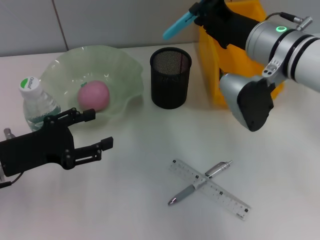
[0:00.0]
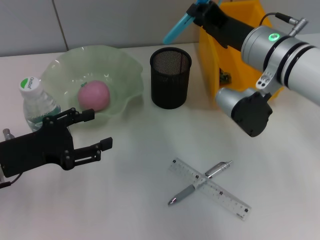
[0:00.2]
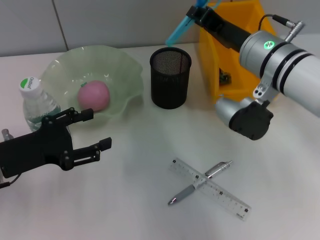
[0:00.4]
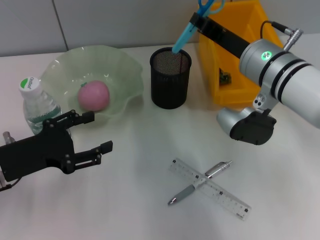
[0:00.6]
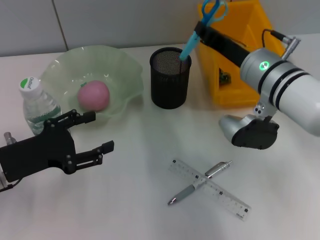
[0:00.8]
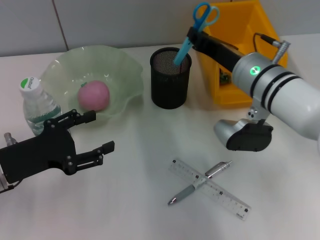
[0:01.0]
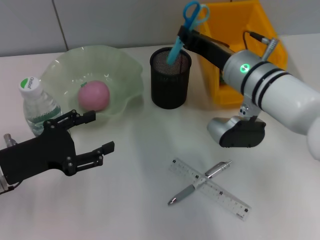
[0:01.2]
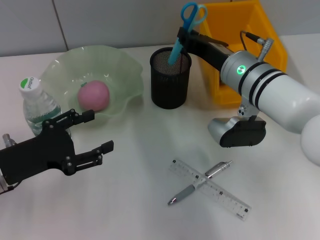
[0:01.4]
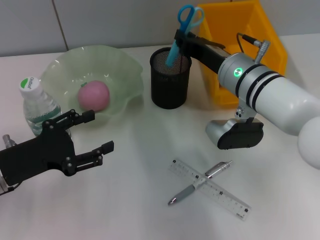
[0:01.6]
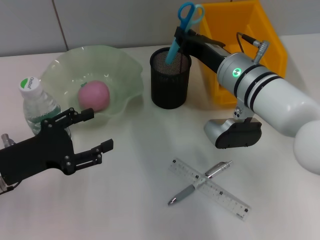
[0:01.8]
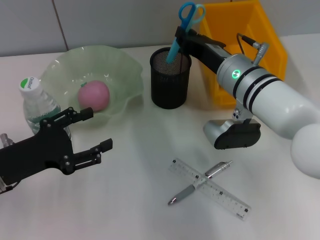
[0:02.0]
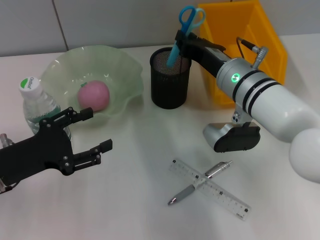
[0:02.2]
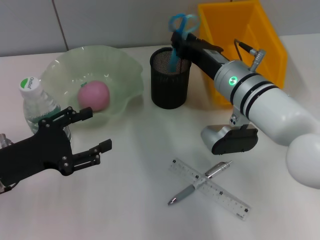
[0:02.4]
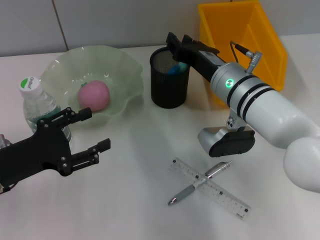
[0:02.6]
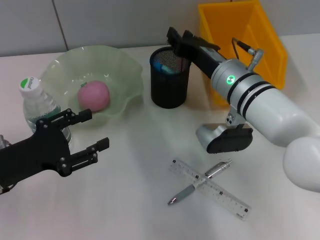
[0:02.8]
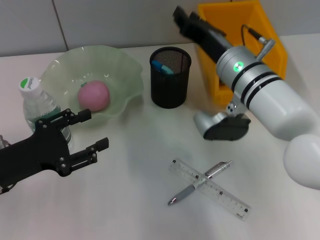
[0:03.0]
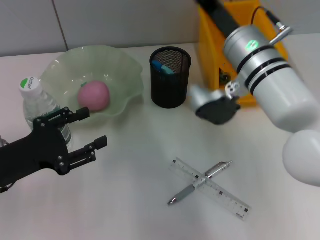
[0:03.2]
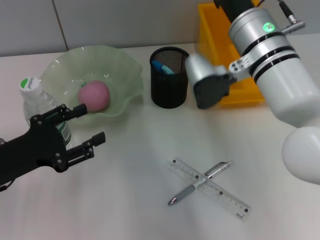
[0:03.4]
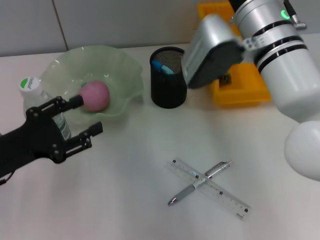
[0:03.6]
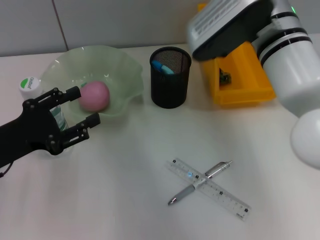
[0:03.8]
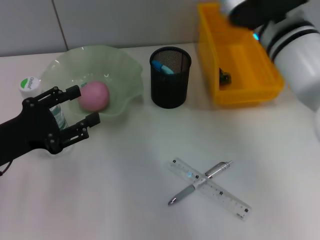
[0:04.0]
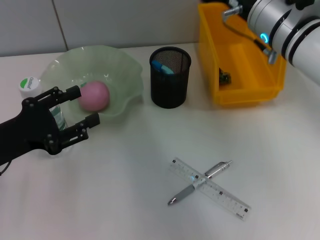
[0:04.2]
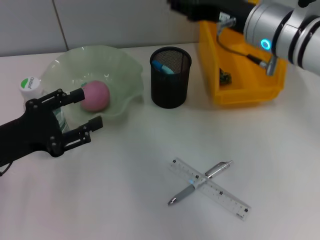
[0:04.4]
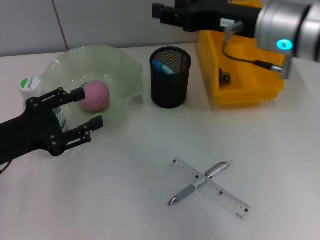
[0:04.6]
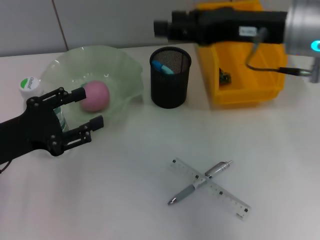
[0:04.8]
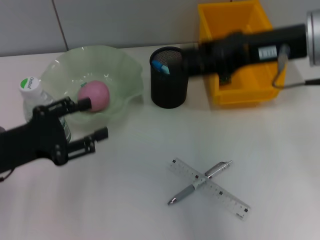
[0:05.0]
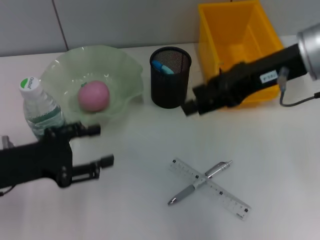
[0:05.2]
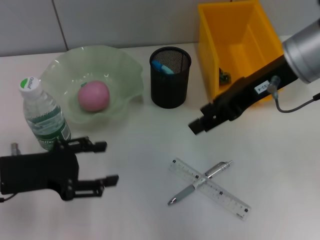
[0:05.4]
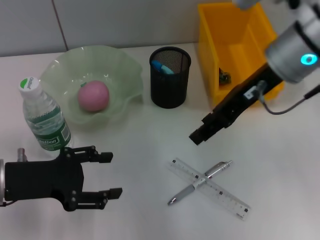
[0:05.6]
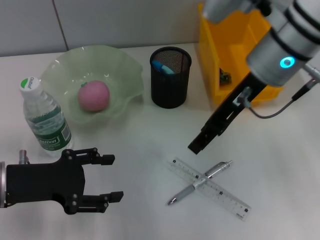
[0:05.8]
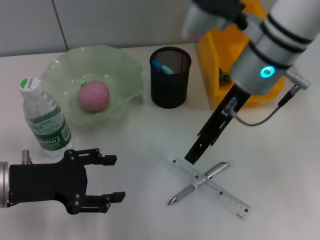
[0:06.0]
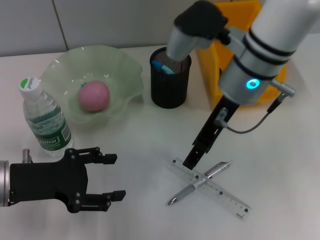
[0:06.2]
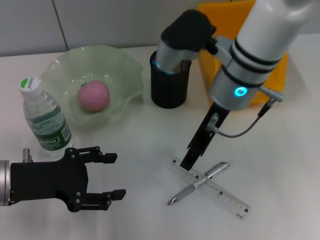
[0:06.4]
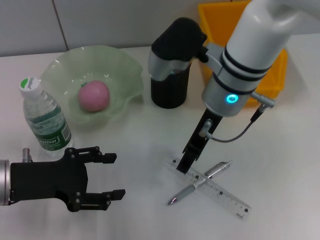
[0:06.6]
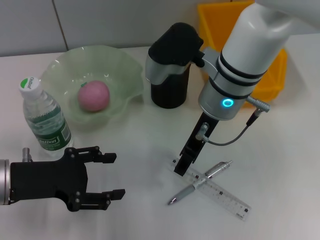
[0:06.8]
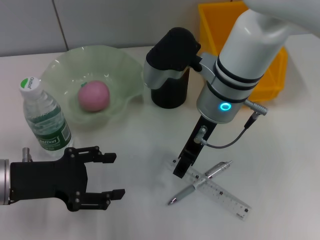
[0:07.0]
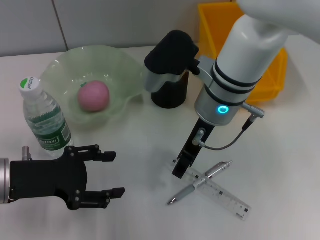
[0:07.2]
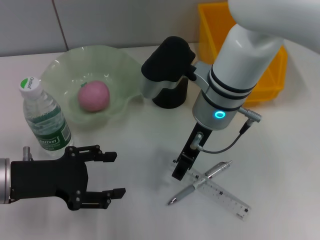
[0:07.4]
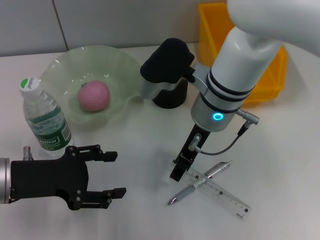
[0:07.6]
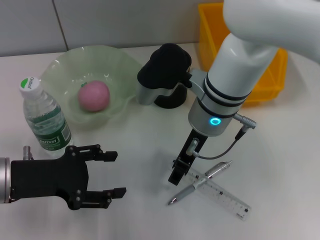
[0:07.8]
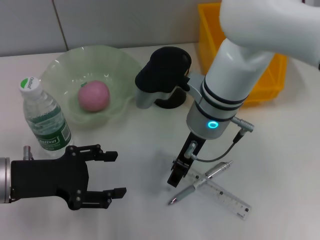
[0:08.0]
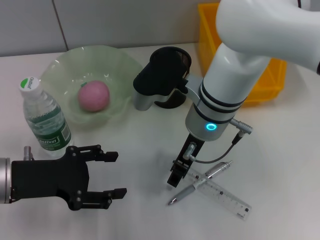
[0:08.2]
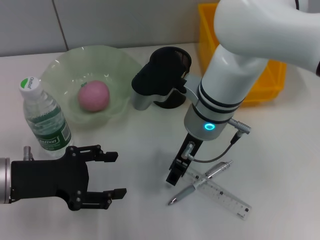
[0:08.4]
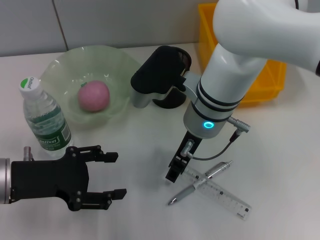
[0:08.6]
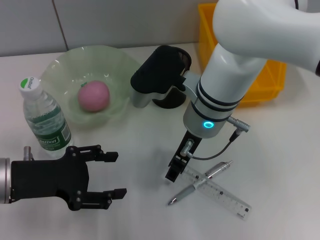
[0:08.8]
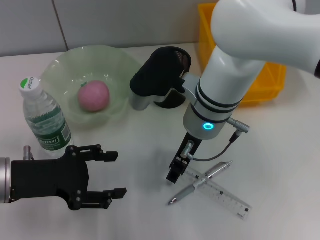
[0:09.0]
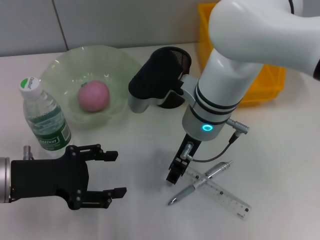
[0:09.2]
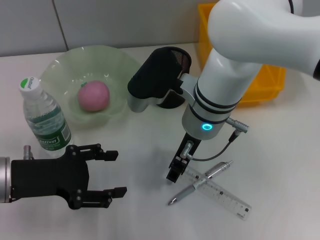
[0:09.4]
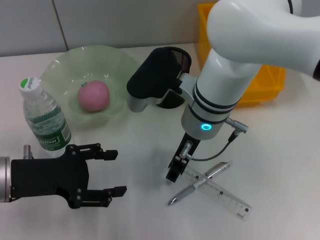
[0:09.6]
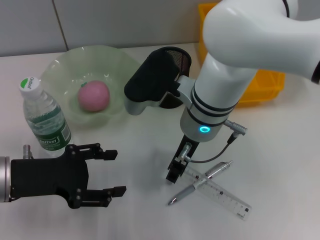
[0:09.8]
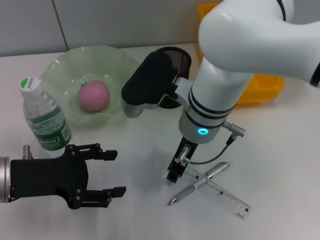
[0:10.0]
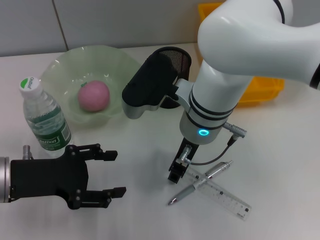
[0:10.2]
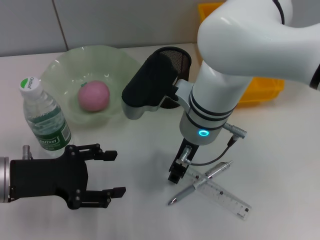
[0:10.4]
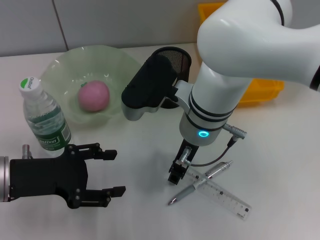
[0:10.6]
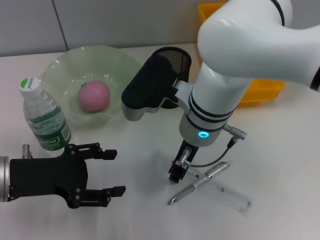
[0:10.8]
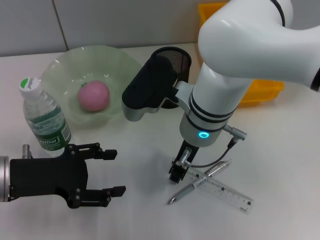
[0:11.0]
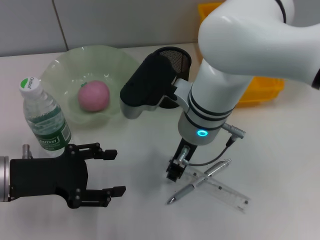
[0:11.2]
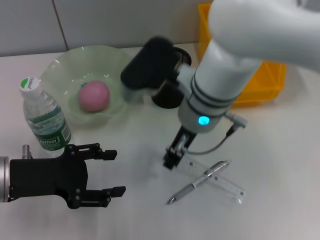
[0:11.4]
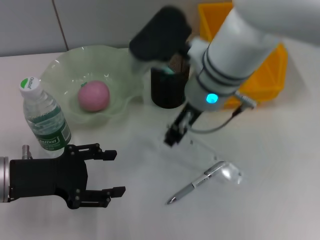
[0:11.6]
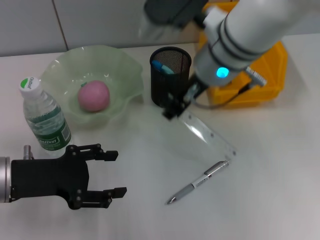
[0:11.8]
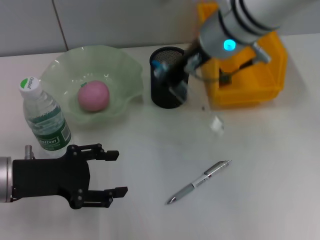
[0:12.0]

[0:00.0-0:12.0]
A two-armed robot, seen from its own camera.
Step, 0:00.0 to 0:02.6: Place the blue scissors into the pen holder with the right hand.
Step, 0:02.8 to 0:10.8: Grab the ruler with the right hand.
0:00.0 to 0:01.6: The right gripper ends up approximately 5 cm from where it was.
0:01.6 to 0:03.0: The grippers move only a little.
0:03.0 to 0:04.4: The right gripper is displaced upward by about 10 cm.
0:06.0 to 0:07.6: The right gripper heads downward and to the left, covering approximately 10 cm.
0:07.6 to 0:09.0: There are only small adjustments of the grippers.
0:09.0 to 0:10.4: Both grippers stay put.
0:10.4 to 0:12.0: The right gripper moves upward, roughly 10 cm.

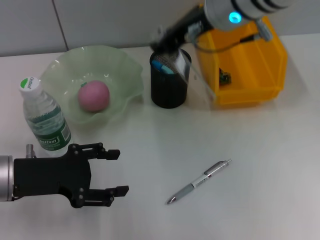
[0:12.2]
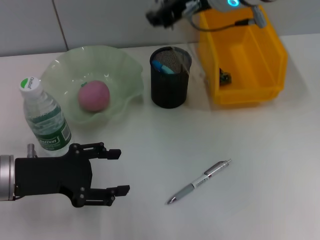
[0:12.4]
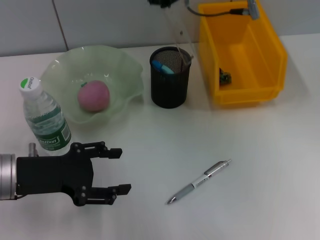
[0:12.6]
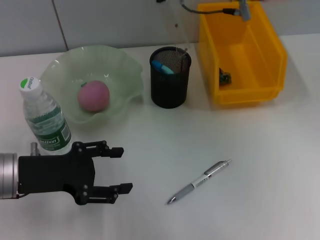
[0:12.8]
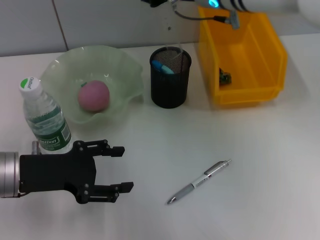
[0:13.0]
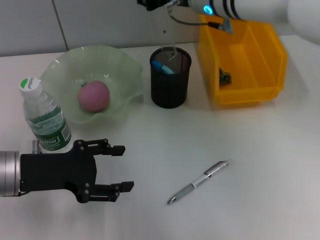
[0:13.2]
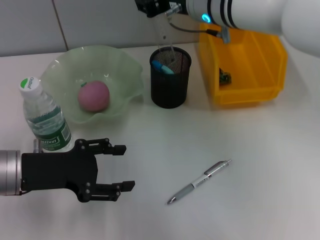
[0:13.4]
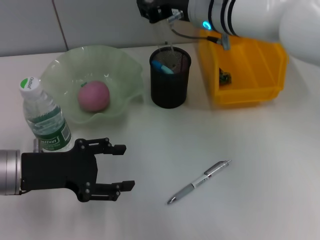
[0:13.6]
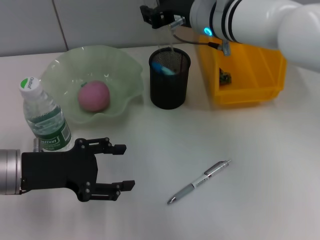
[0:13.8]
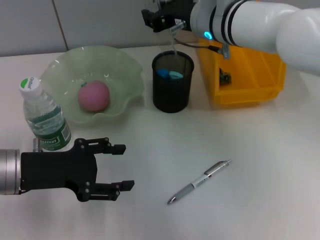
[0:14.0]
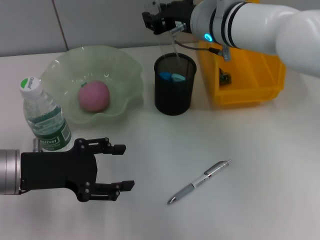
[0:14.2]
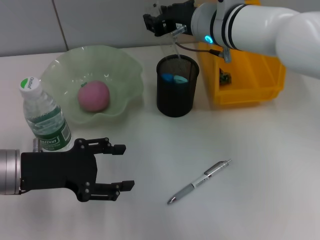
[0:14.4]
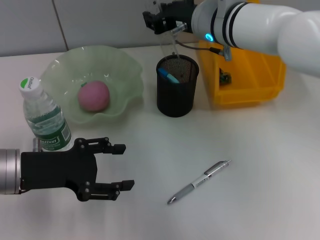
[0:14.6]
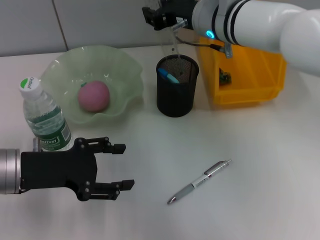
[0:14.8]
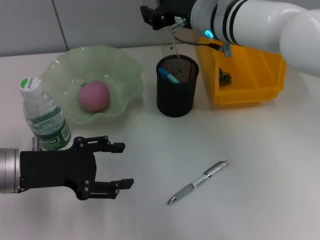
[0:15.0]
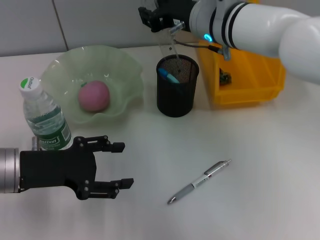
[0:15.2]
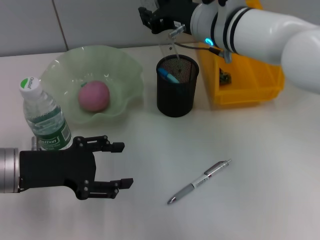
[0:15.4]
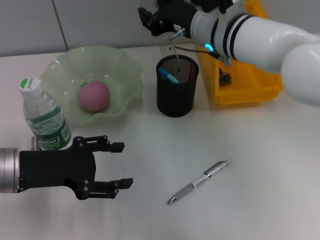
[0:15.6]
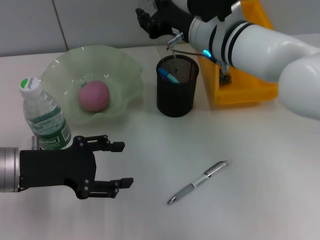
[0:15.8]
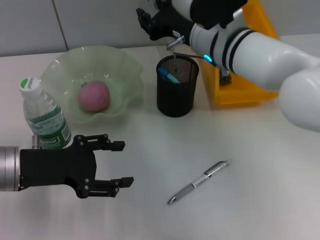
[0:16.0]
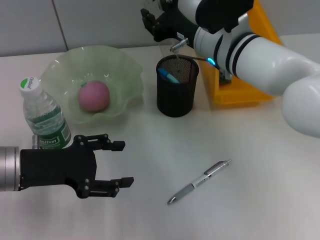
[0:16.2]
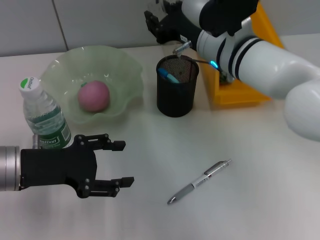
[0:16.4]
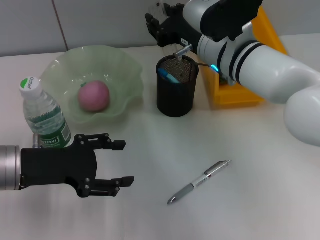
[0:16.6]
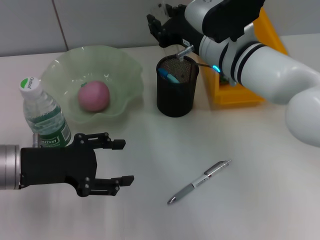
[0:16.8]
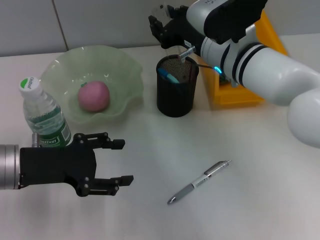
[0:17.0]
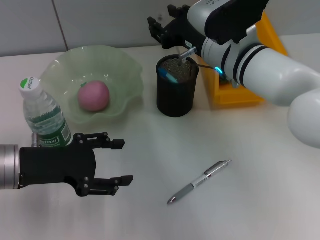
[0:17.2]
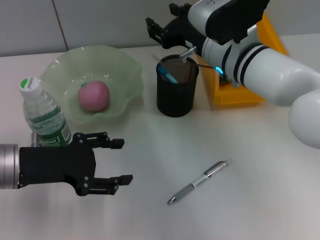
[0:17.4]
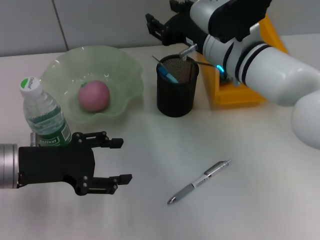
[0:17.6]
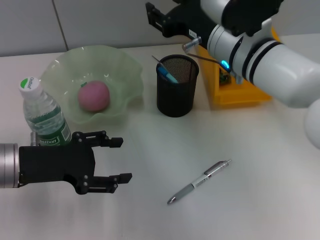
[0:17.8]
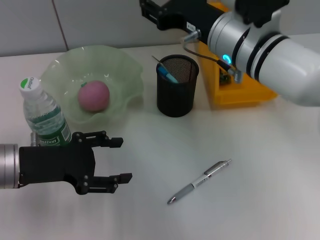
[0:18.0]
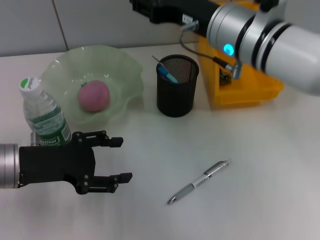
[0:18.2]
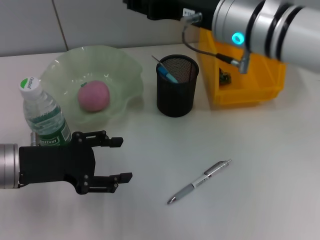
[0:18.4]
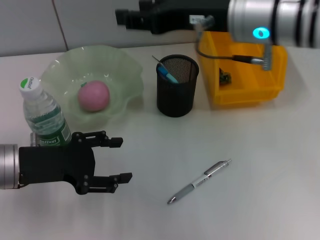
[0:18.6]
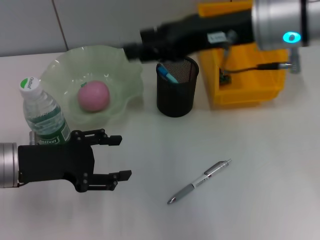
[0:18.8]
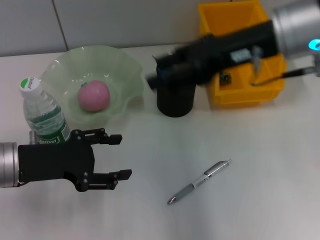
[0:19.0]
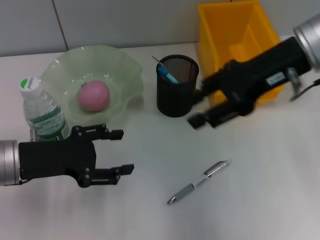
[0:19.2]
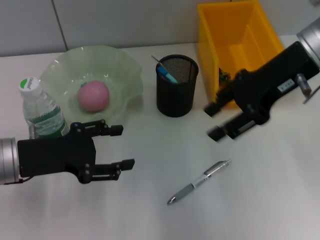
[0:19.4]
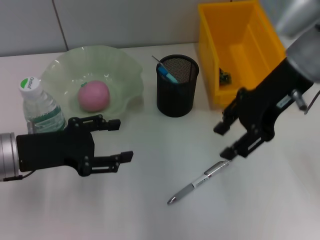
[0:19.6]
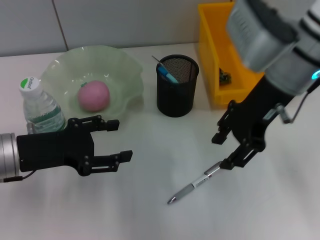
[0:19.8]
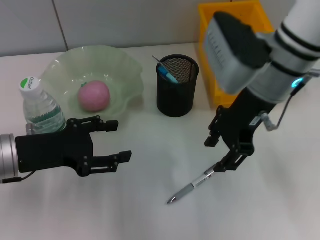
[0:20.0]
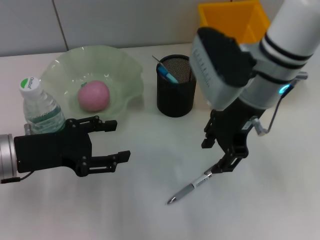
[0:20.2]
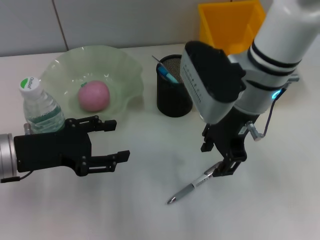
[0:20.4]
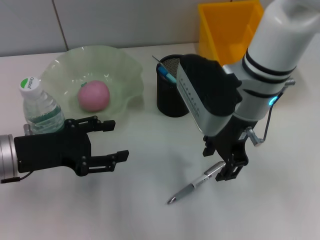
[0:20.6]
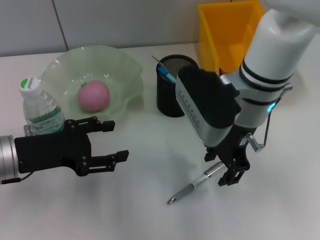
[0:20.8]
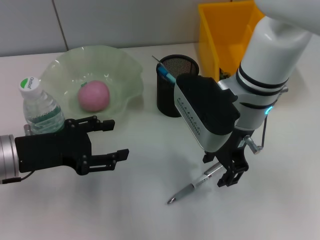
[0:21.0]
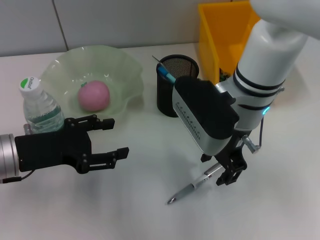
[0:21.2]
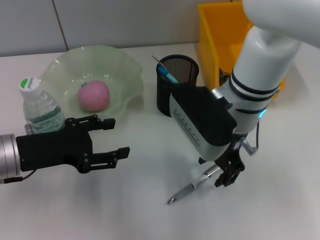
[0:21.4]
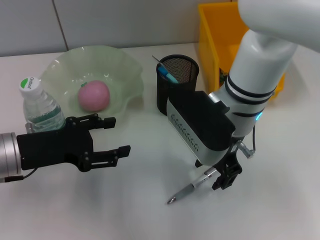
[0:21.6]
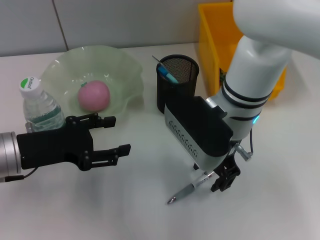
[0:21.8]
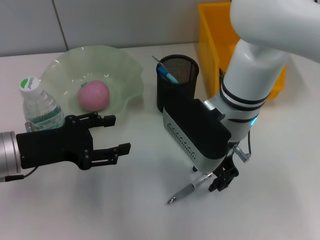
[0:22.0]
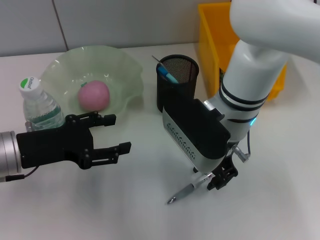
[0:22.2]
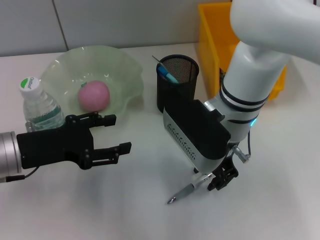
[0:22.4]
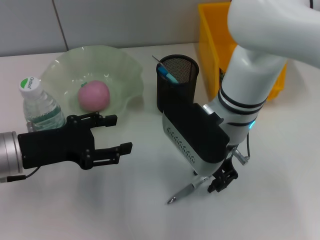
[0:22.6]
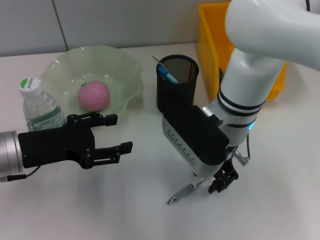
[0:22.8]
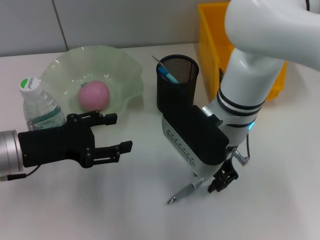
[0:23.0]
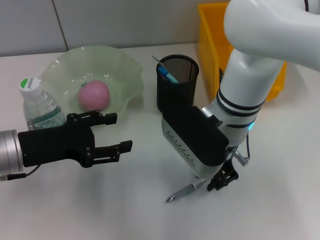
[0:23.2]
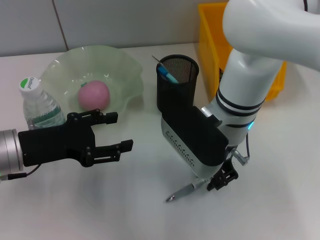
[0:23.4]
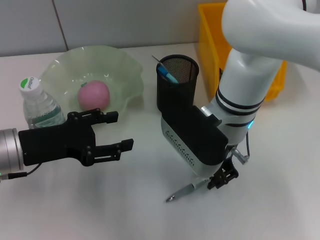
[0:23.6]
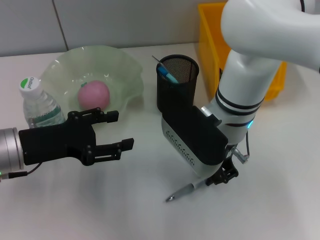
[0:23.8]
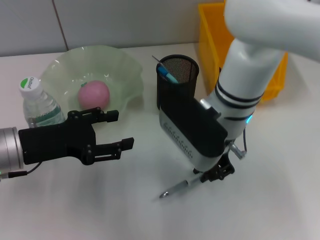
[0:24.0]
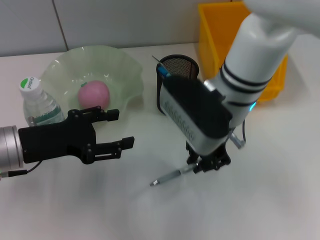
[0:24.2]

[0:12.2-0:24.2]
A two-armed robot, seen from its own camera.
Step, 0:12.2 to 0:17.6: Place the ruler into the pen holder with the right hand.
Step, 0:17.8 to 0:23.8: Grab the gray spring-action pen with the right hand.
0:12.2 to 0:13.8: The right gripper travels downward by roughly 10 cm.
0:13.8 to 0:15.2: Both grippers stay put.
0:15.2 to 0:16.6: The grippers make only small movements.
0:16.6 to 0:18.2: The right gripper goes approximately 5 cm upward.
0:18.2 to 0:19.8: The right gripper travels to the right by roughly 5 cm.
0:19.8 to 0:21.2: The right gripper shifts roughly 10 cm to the left and downward.
0:21.2 to 0:22.6: The grippers stay close to where they were, moving slightly.
0:22.6 to 0:24.2: The right gripper closes.
